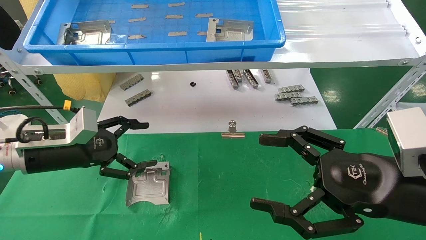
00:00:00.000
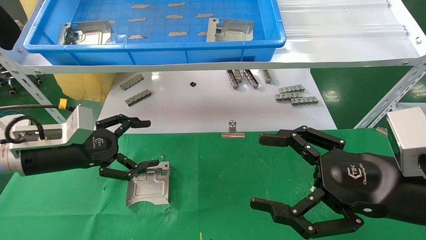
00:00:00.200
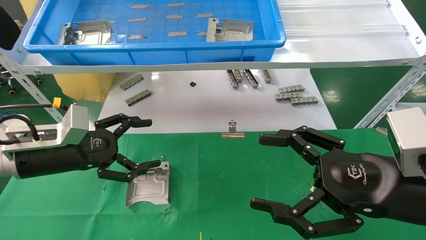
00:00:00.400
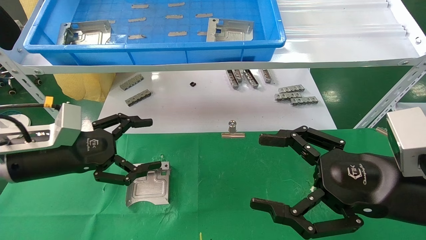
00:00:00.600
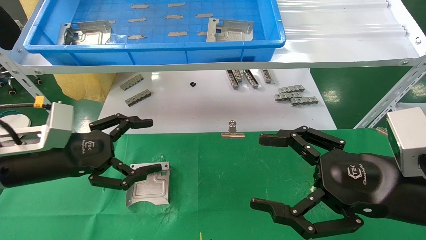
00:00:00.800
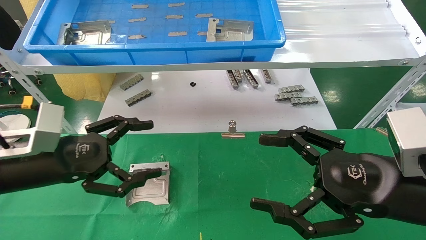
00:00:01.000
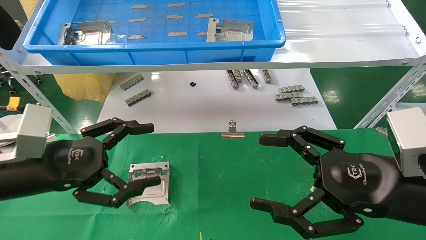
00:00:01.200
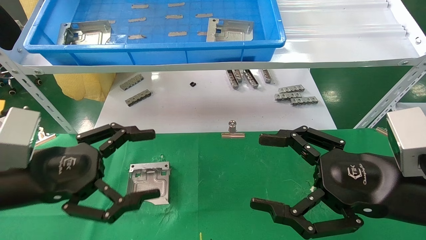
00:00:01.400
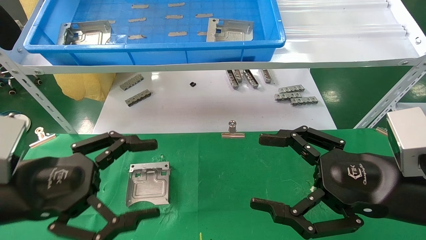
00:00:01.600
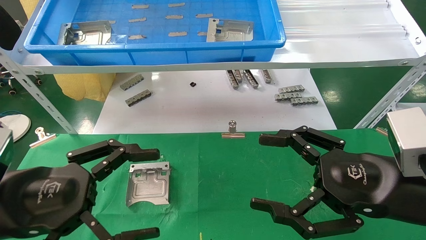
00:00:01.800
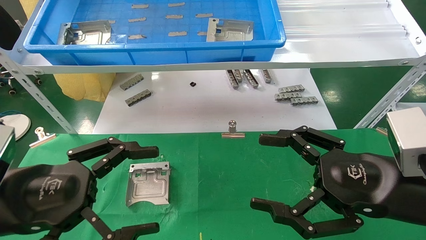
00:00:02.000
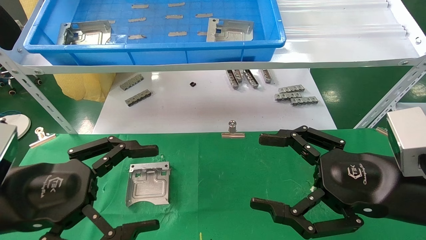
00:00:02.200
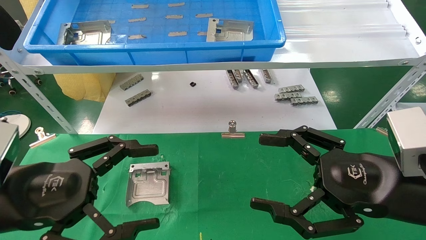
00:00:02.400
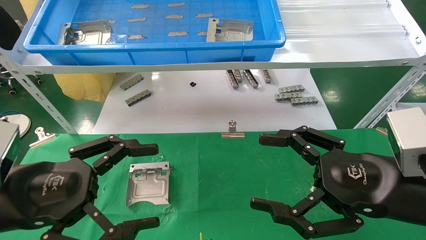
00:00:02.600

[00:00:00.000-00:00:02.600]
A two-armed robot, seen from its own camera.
Task of the whole recording: use the mechanical arm to pick up the parts and place them on the table.
00:00:00.000 to 00:00:01.200: The left gripper heads backward, covering some 10 cm.
00:00:01.200 to 00:00:02.600: The left gripper shifts about 5 cm backward.

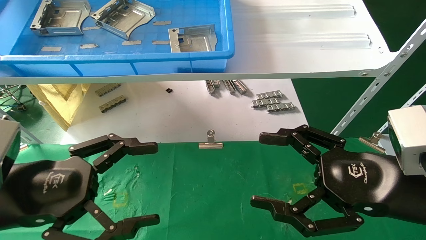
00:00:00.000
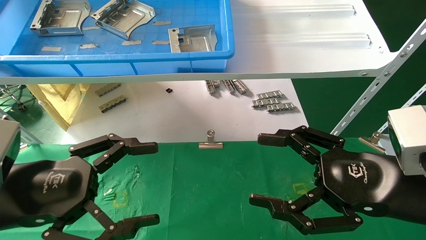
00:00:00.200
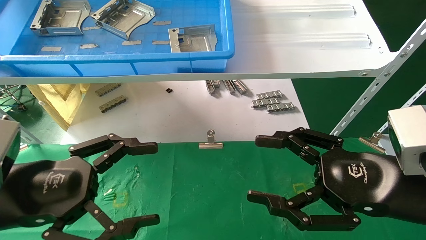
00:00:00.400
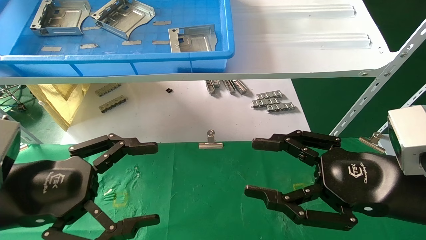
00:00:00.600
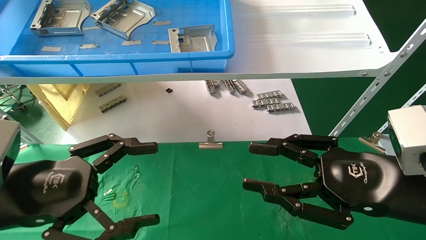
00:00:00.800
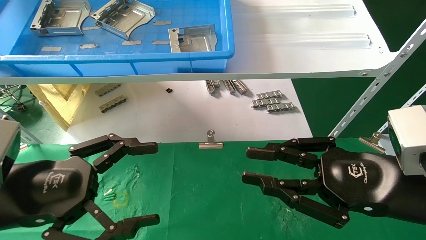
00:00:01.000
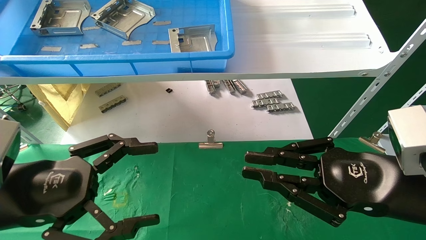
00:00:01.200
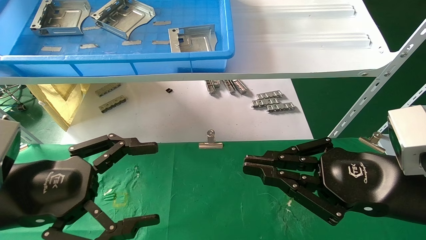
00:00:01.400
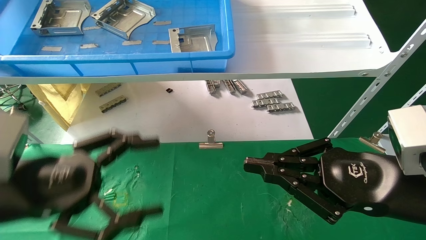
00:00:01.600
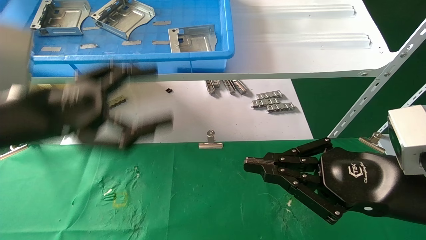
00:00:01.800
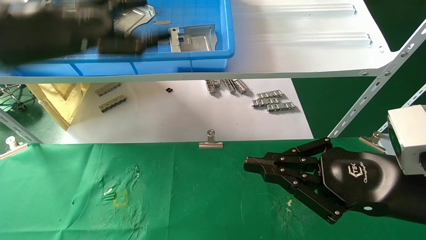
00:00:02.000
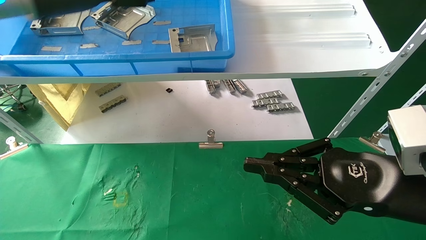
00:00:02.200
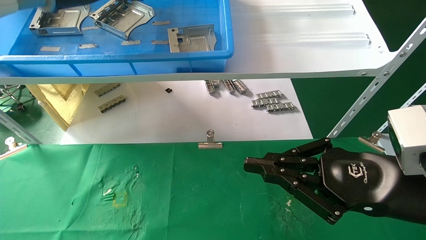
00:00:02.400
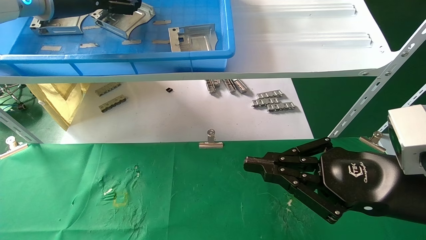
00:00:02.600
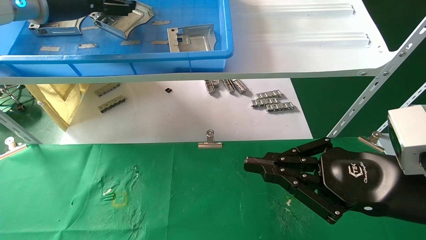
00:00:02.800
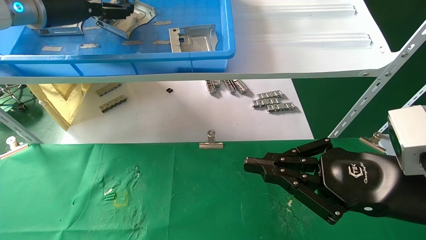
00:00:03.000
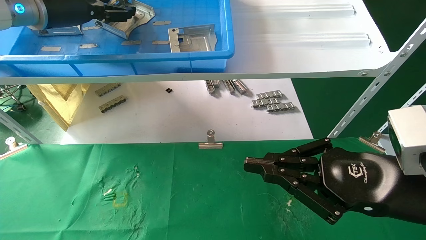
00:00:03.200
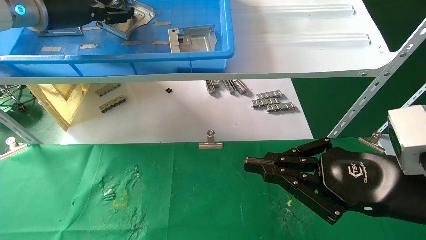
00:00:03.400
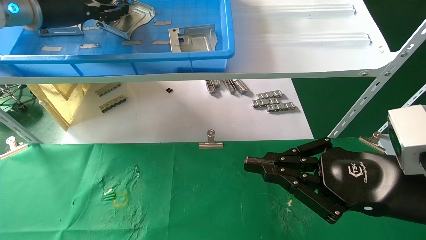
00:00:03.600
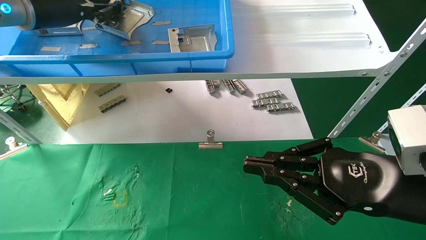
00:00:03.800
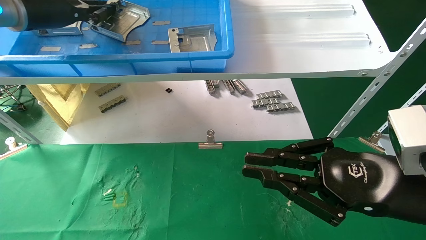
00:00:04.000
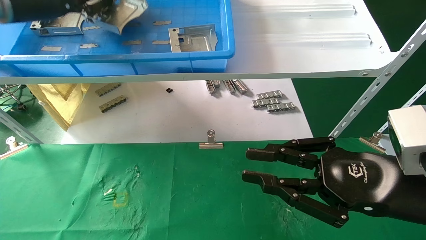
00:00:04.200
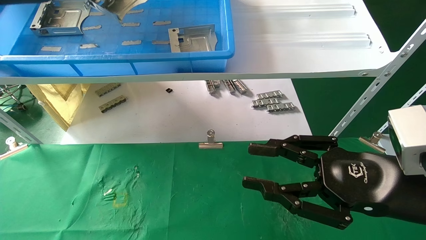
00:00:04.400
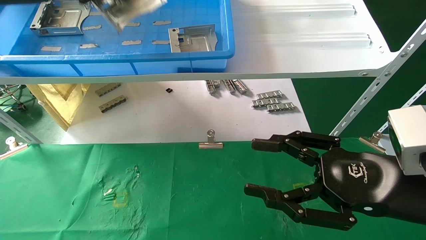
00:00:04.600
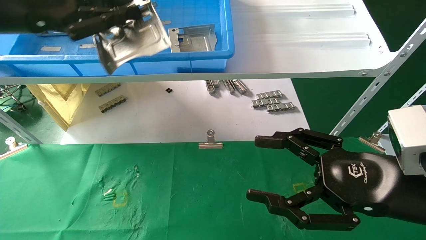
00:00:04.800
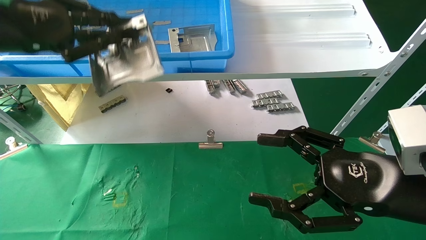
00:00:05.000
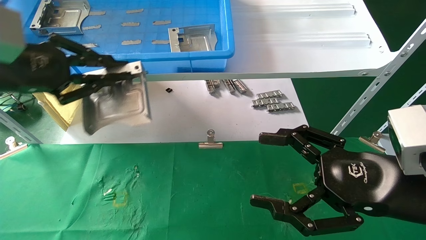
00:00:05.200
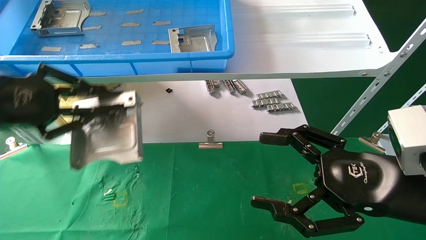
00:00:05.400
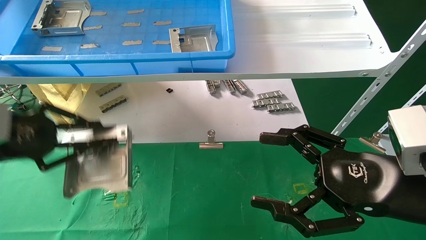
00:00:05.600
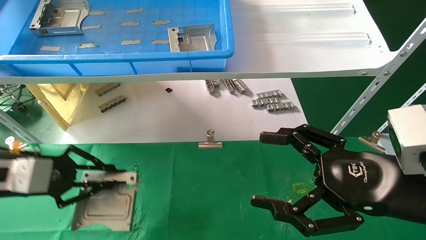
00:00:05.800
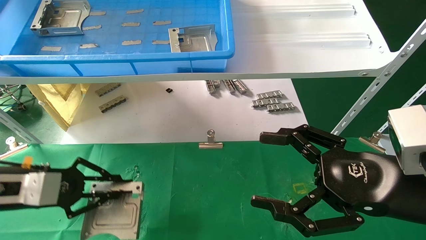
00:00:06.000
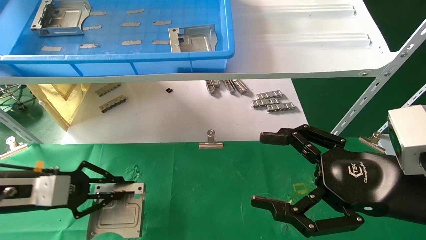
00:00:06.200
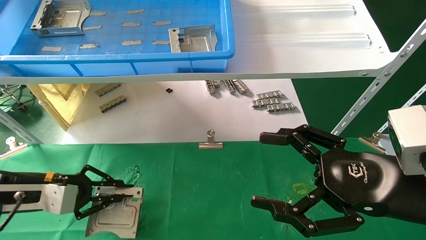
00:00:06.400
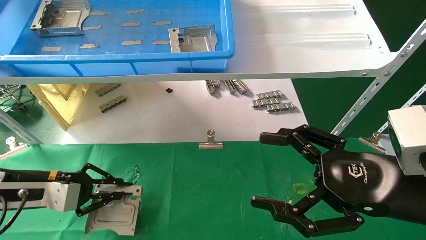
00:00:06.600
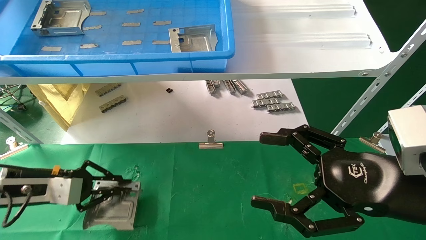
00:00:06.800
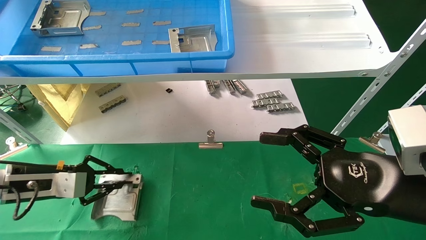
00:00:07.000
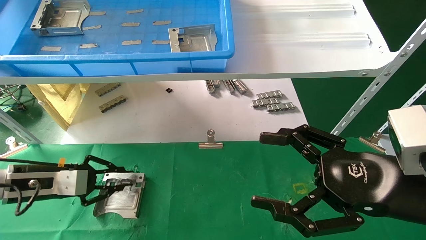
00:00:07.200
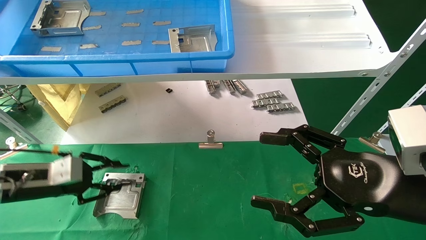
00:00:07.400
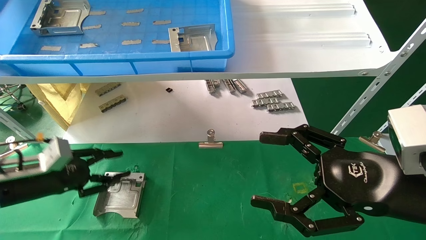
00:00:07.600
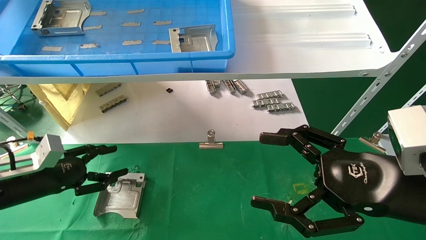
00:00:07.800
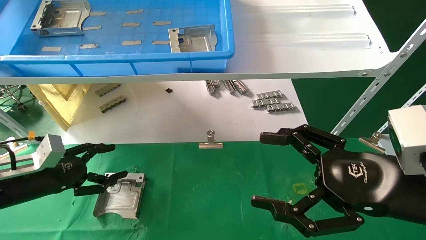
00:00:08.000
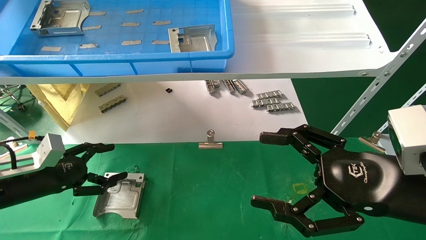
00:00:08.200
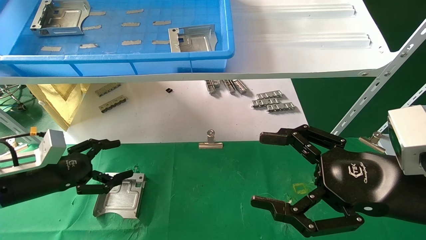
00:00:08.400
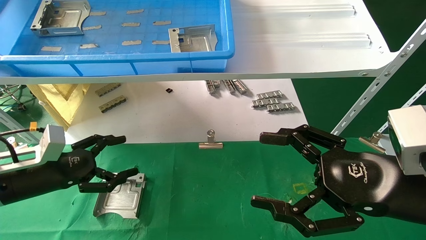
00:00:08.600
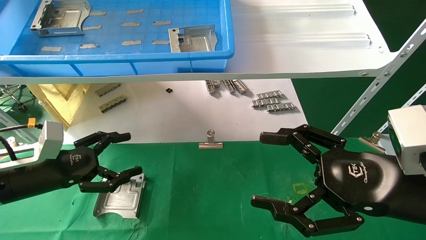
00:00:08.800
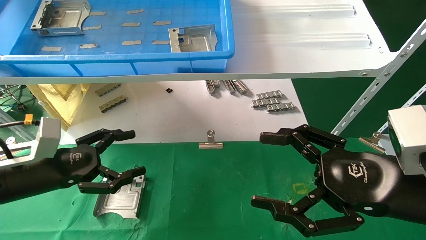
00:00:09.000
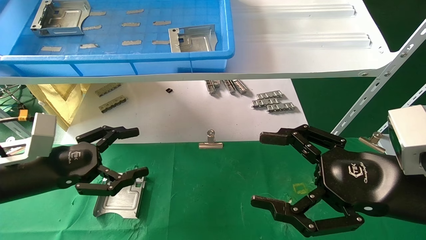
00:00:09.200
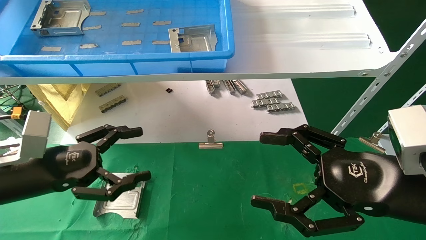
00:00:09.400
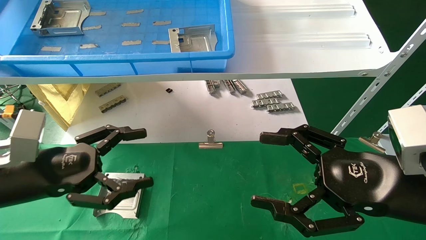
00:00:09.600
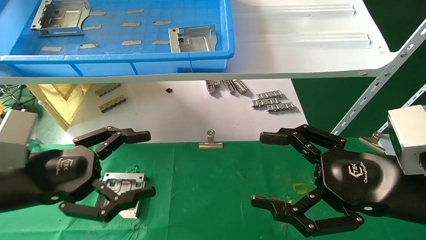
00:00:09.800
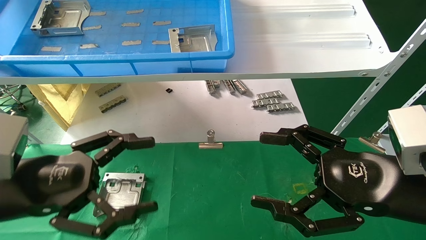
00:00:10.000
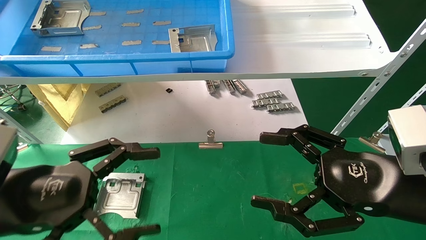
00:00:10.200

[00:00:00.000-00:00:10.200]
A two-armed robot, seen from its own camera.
Task of the whole recording: use the mechanical arm to pick up the parts and place them on the table.
Step, 00:00:02.000 to 00:00:03.800: Pick up the hard drive bracket from the feeding area.
Step, 00:00:04.000 to 00:00:07.200: Place the hard drive bracket into the box.
00:00:00.000 to 00:00:01.400: The right gripper closes its fingers.
00:00:01.400 to 00:00:03.000: The left gripper heads forward and upward, covering roughly 30 cm.
00:00:03.000 to 00:00:04.400: The left gripper travels backward by roughly 5 cm, and closes up.
00:00:04.400 to 00:00:05.800: The left gripper travels downward by some 25 cm. The right gripper opens.
00:00:05.800 to 00:00:07.200: The left gripper goes about 10 cm downward and forward.
00:00:07.200 to 00:00:08.800: The left gripper opens.
00:00:08.800 to 00:00:10.200: The left gripper heads backward, to the right and upward, covering roughly 15 cm.
